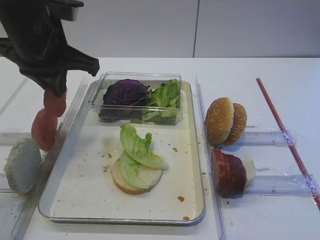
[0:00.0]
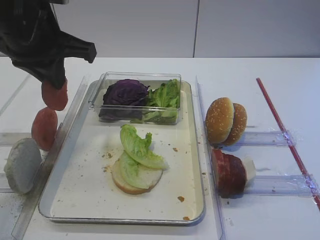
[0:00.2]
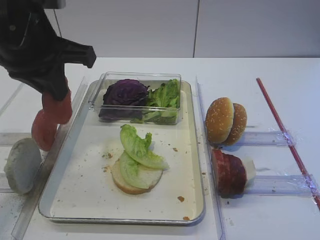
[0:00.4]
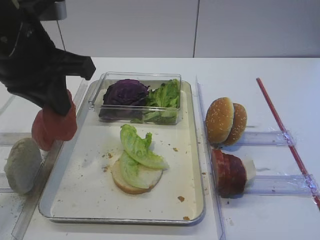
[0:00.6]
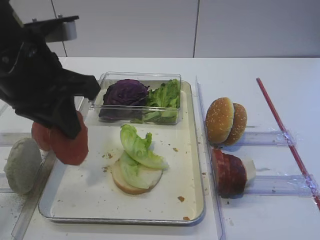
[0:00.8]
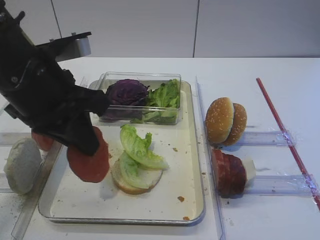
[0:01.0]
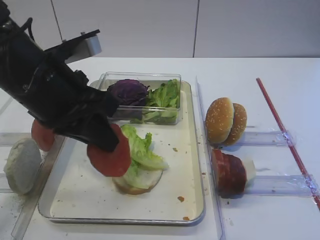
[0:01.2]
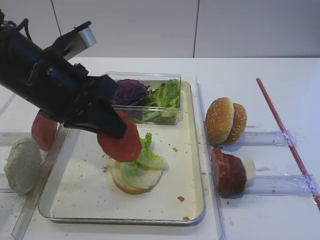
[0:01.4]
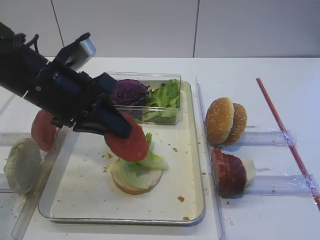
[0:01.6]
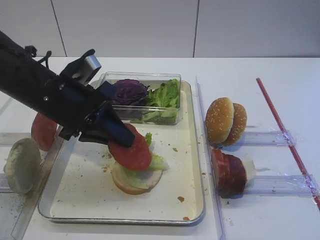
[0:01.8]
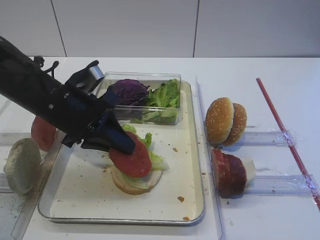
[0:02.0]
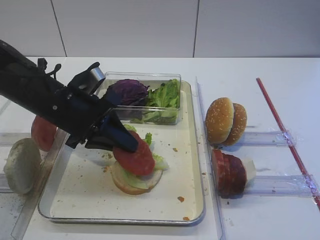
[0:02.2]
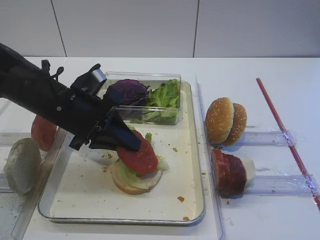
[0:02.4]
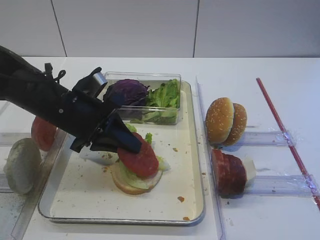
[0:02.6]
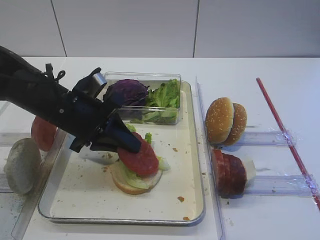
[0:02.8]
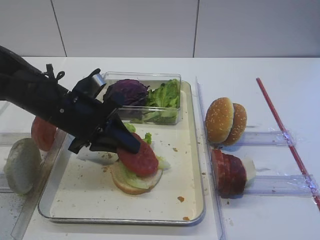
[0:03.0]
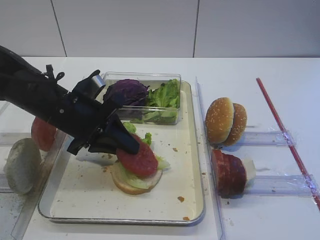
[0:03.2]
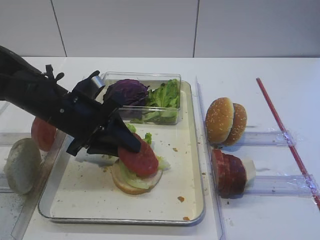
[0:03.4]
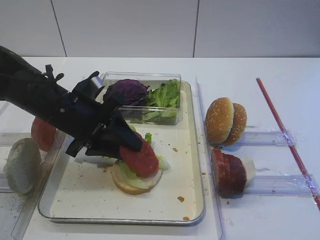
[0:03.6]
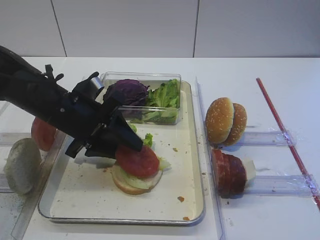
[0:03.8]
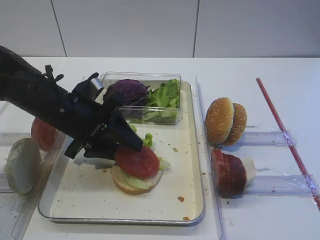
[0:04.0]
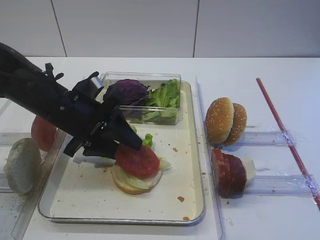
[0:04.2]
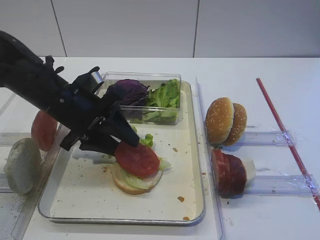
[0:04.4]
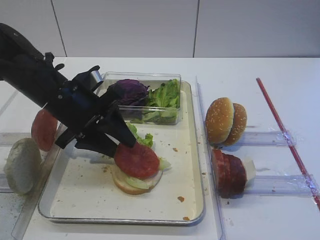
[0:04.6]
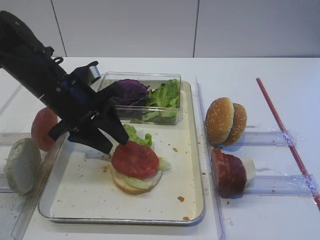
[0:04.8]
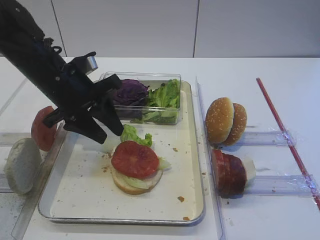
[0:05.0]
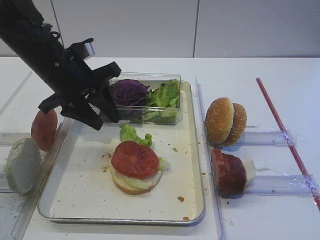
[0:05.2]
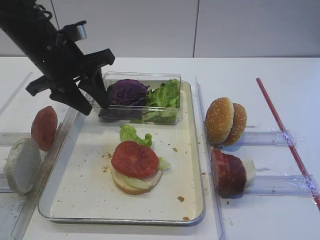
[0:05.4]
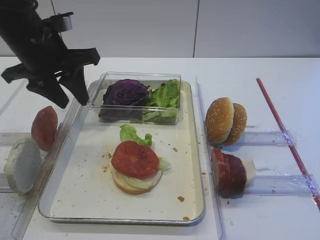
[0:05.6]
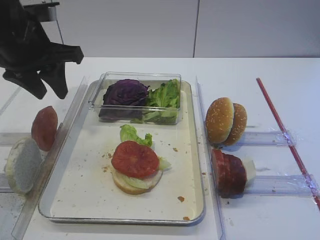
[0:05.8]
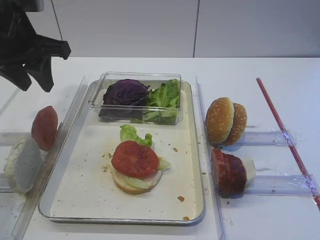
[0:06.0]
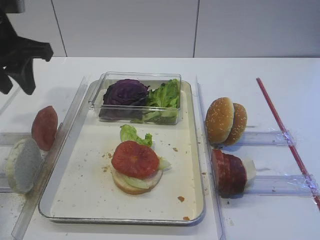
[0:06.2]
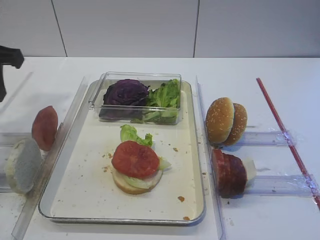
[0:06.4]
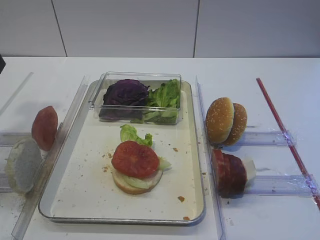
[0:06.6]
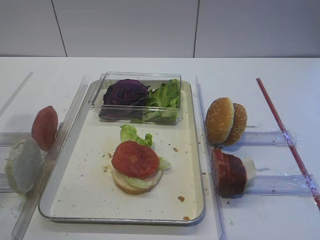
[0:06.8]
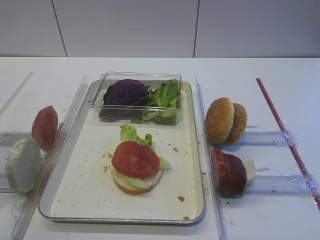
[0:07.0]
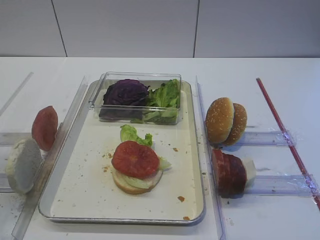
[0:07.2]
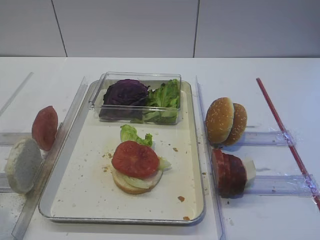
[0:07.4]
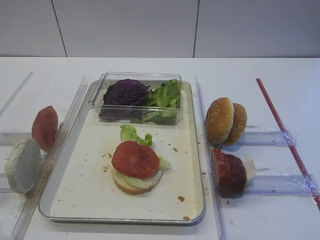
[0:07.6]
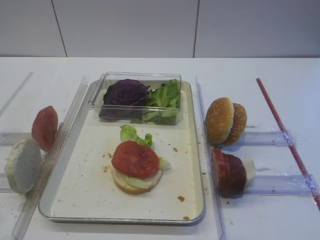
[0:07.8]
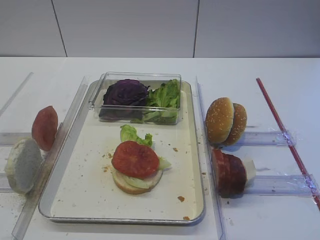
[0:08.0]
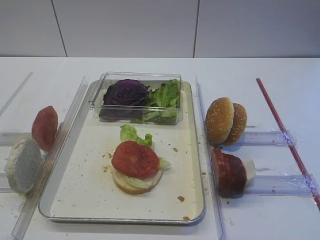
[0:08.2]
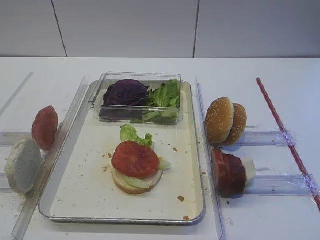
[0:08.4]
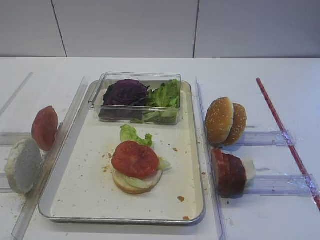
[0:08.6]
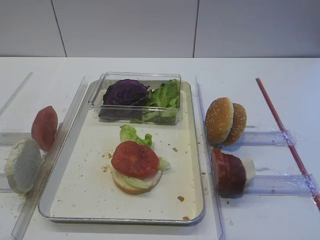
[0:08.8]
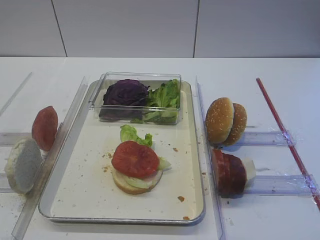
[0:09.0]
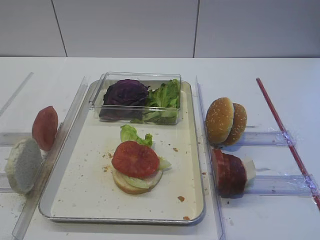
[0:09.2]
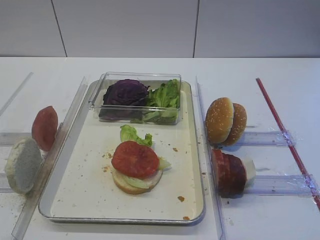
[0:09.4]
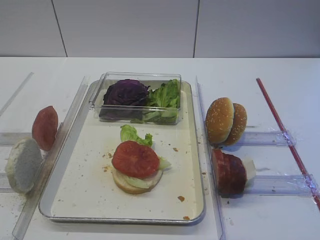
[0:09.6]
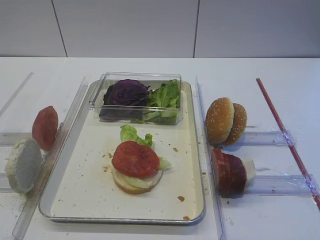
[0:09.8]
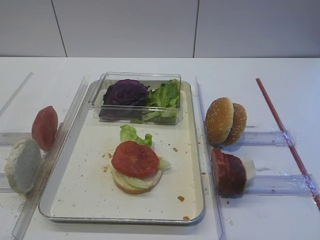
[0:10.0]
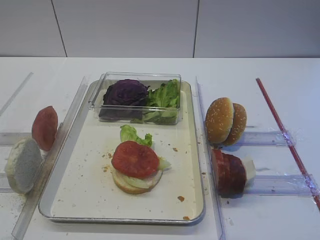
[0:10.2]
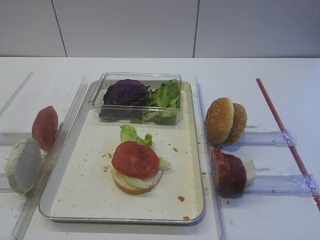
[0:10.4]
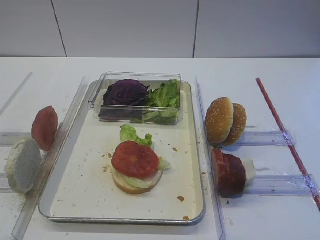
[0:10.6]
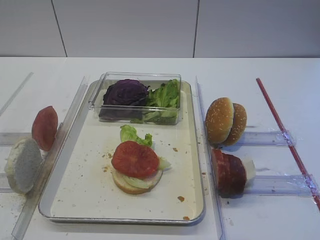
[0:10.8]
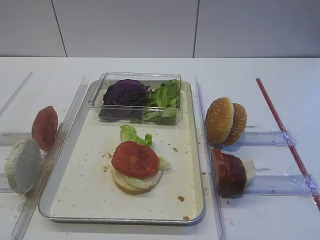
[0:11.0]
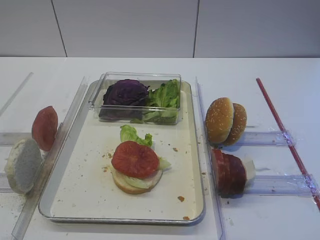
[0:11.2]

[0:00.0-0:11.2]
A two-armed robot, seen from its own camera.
Step, 0:00.0 to 0:04.6: Place the tomato slice on the lettuce leaf with the left gripper.
0:00.0 to 0:01.6: The left gripper moves downward, about 5 cm.
0:01.6 to 0:03.2: The left gripper travels downward by some 5 cm.
0:03.2 to 0:04.8: The left gripper opens.
0:04.8 to 0:06.4: The left gripper heads to the left and upward, covering roughly 15 cm.
0:06.4 to 0:08.0: The left gripper heads backward, covering about 25 cm.
0:09.6 to 0:11.2: Both grippers stay about where they are.

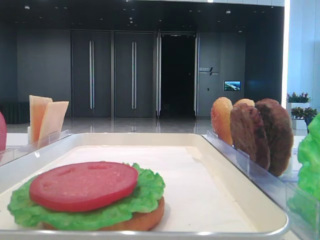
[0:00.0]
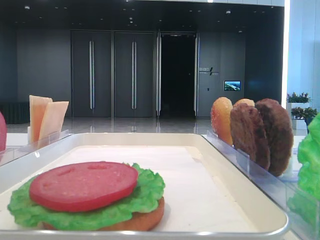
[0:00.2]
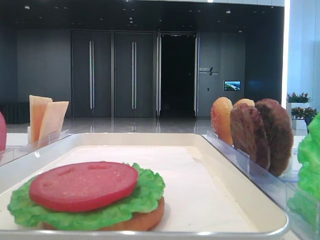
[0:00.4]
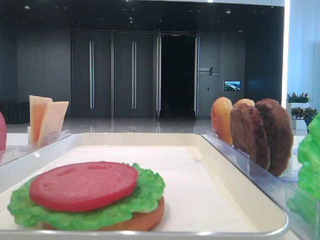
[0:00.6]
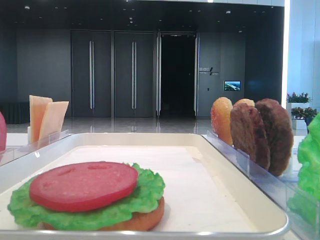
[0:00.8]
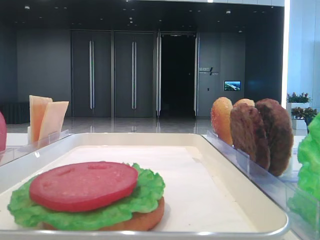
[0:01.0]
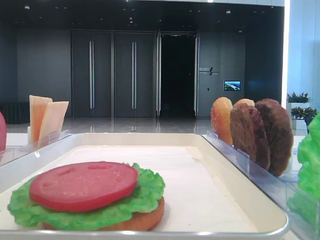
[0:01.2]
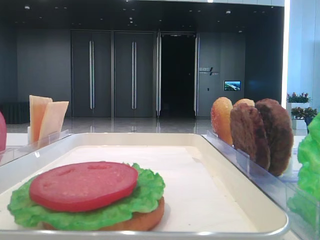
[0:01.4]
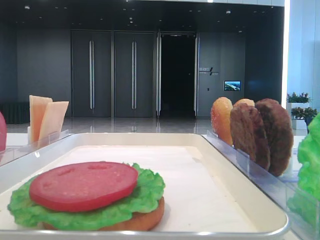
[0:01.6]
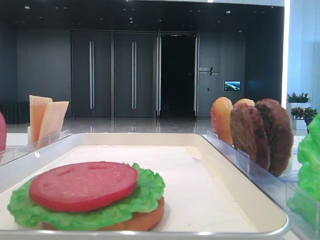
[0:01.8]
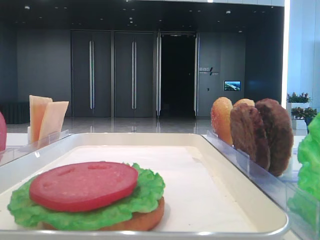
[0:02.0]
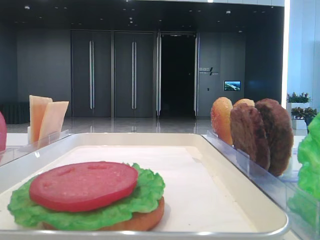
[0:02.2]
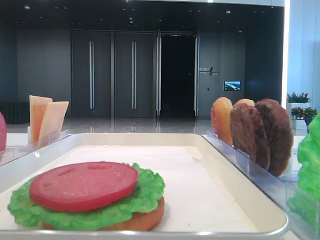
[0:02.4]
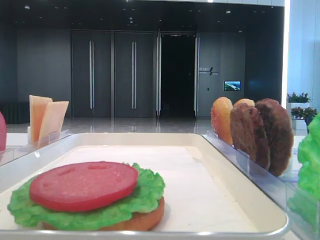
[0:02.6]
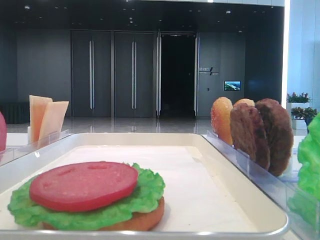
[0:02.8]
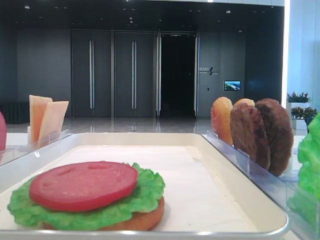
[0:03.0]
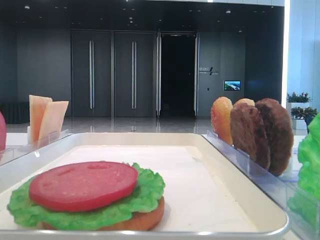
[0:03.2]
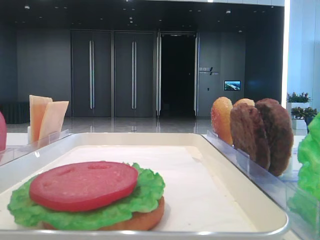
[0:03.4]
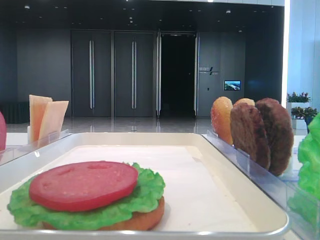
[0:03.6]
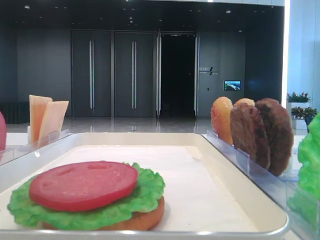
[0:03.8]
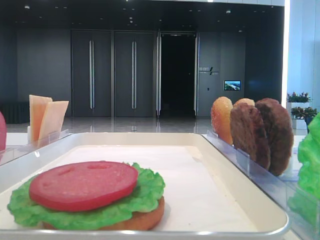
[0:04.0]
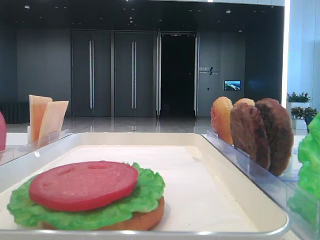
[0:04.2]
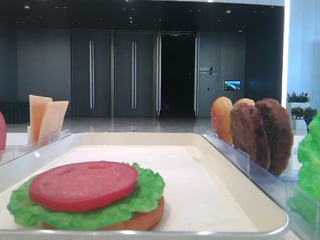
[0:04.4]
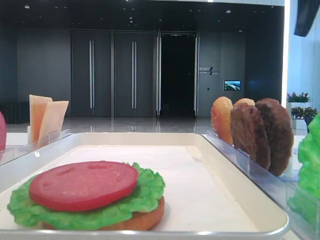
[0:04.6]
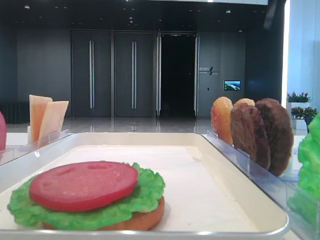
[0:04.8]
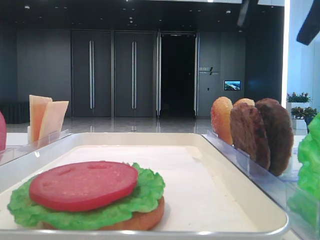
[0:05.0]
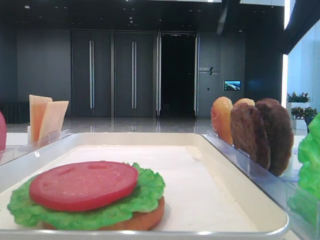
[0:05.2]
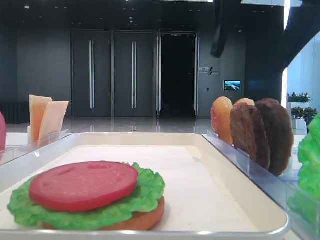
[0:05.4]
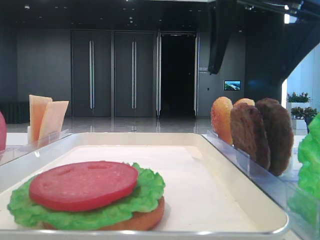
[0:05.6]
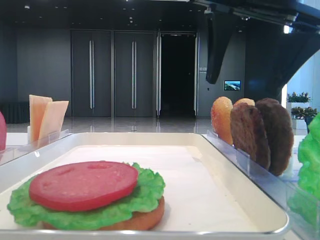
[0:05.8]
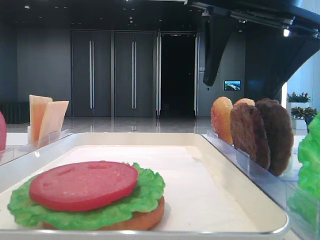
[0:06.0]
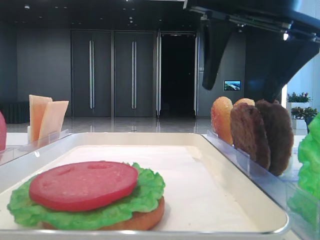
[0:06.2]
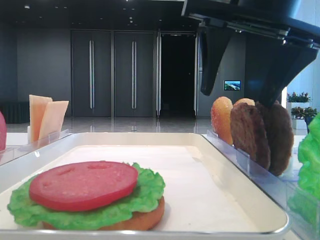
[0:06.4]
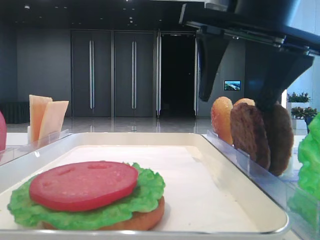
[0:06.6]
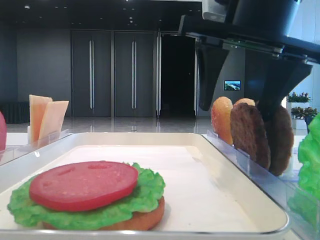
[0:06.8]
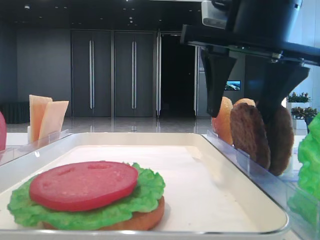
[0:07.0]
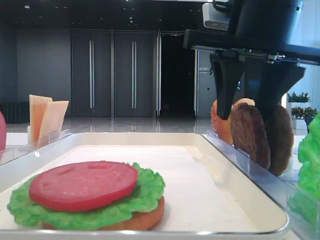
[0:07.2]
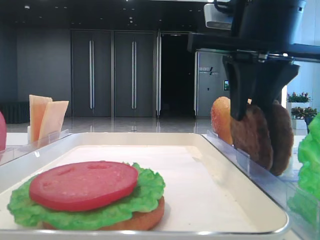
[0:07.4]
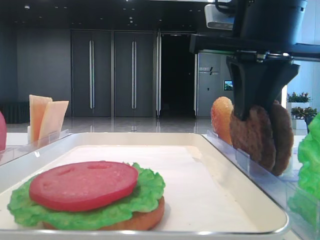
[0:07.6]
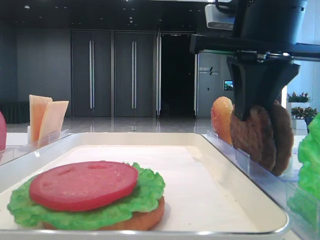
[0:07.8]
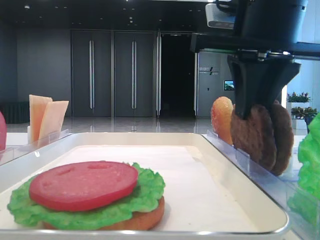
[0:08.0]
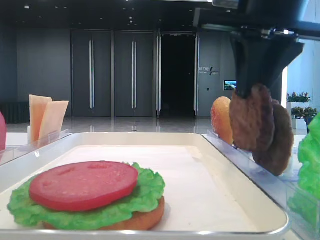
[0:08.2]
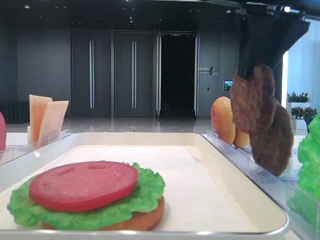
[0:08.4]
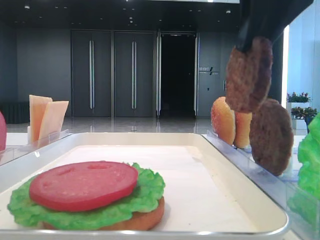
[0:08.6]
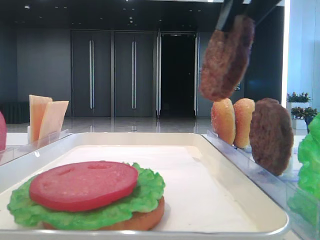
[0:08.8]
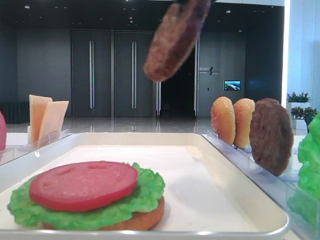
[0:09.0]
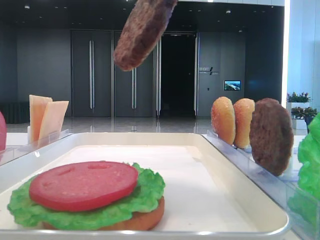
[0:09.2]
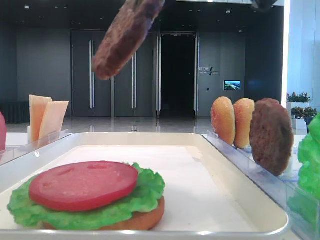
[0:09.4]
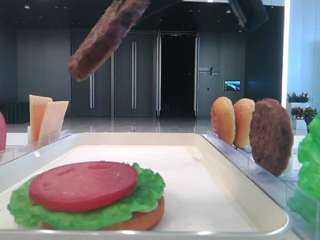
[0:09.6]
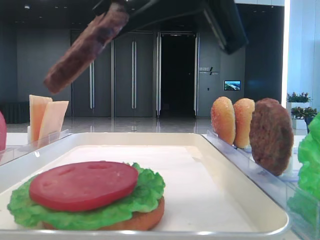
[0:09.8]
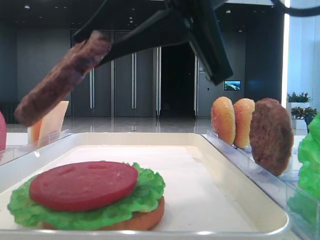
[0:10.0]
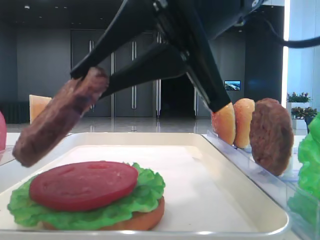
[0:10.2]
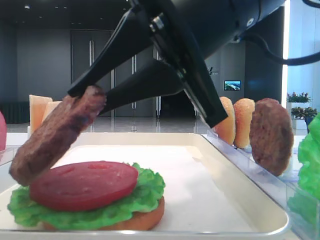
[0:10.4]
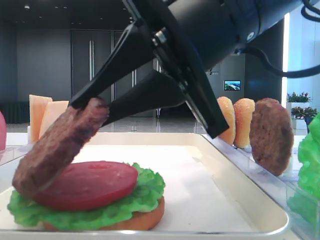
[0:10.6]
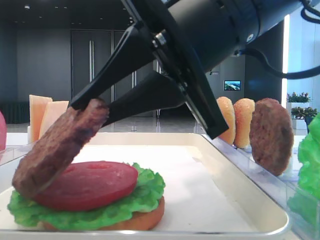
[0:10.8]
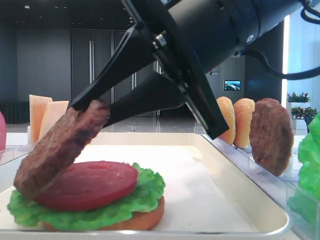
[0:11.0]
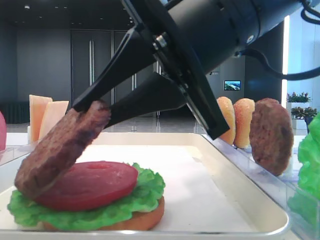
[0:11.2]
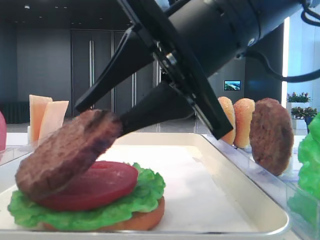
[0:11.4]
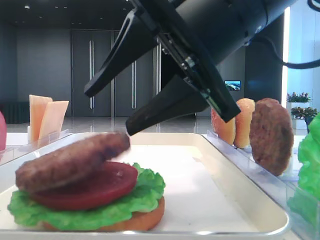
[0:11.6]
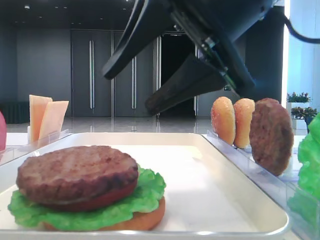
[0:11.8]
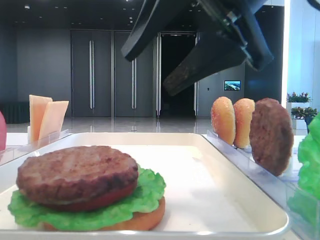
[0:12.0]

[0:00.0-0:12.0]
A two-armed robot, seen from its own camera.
Step, 0:00.0 to 0:07.8: Grab the patty with the right hand.
Step, 0:08.0 to 0:11.4: Place the patty on the tomato slice with the right hand.
0:04.4 to 0:06.0: The left gripper closes up. Meanwhile the right gripper travels to the left by about 15 cm.
0:06.0 to 0:07.6: The right gripper closes.
0:07.6 to 0:09.0: The right gripper heads upward and backward, covering some 10 cm.
0:09.0 to 0:10.4: The right gripper travels downward by some 10 cm.
0:10.4 to 0:12.0: The right gripper opens its fingers.
